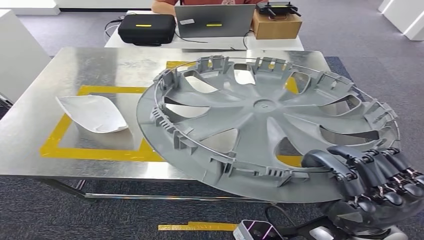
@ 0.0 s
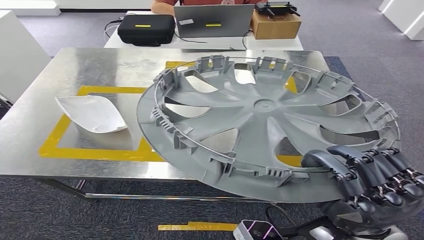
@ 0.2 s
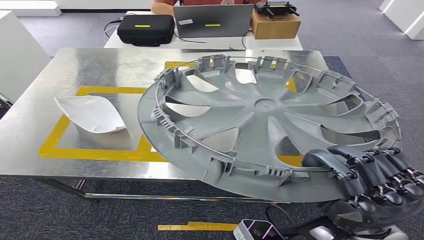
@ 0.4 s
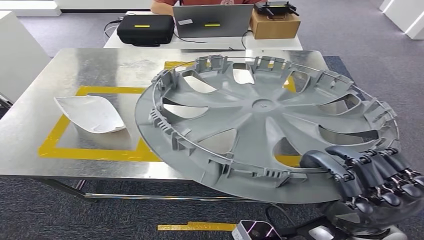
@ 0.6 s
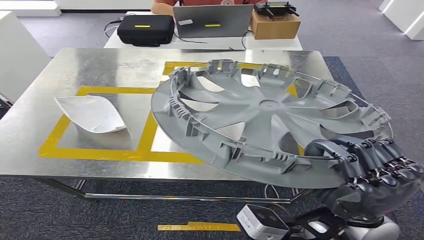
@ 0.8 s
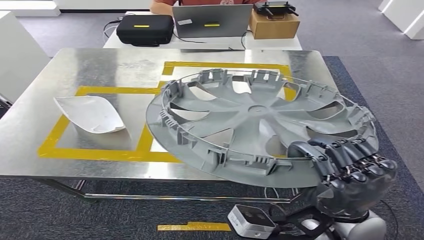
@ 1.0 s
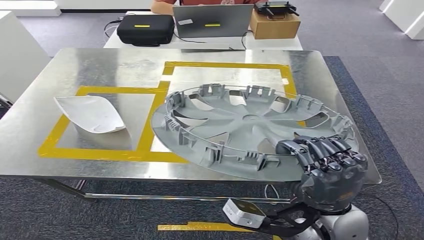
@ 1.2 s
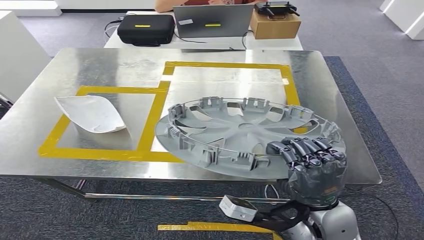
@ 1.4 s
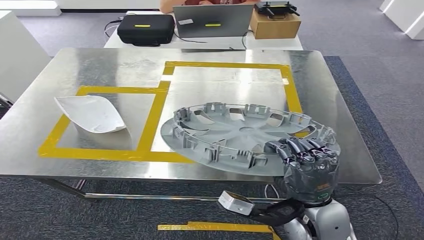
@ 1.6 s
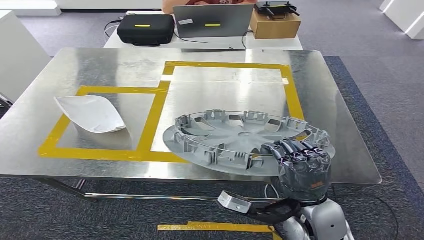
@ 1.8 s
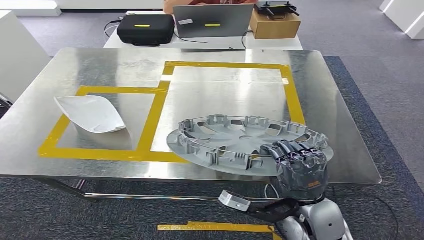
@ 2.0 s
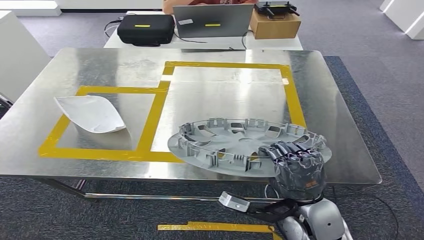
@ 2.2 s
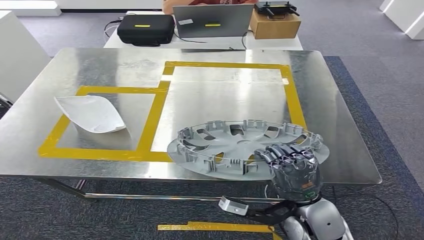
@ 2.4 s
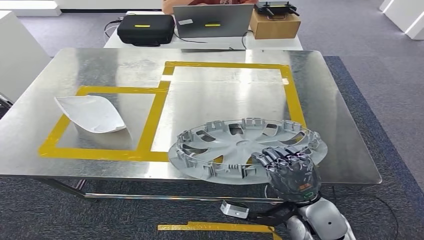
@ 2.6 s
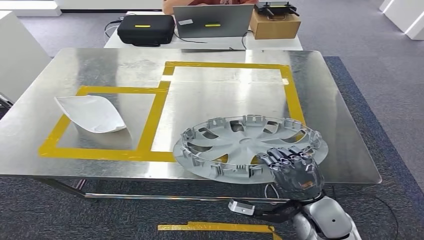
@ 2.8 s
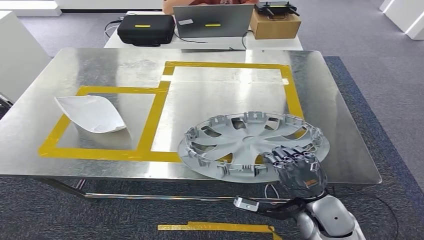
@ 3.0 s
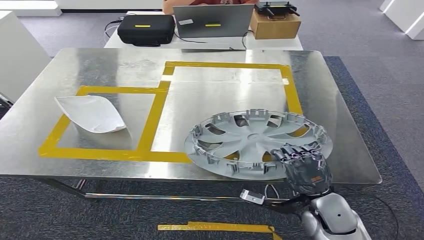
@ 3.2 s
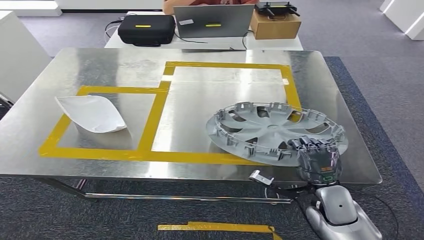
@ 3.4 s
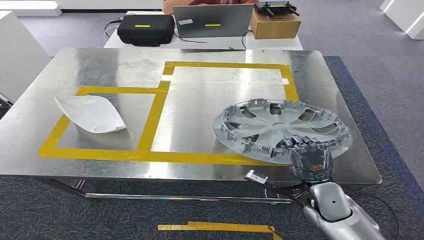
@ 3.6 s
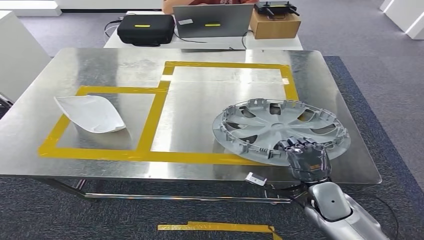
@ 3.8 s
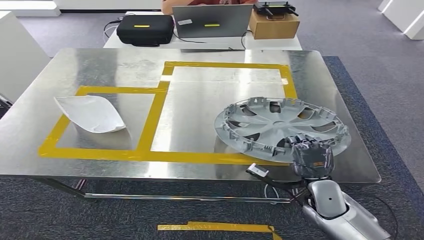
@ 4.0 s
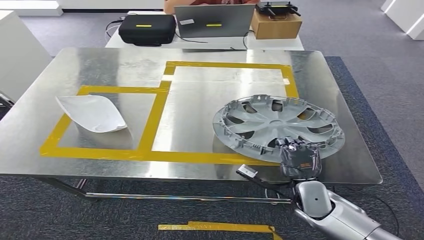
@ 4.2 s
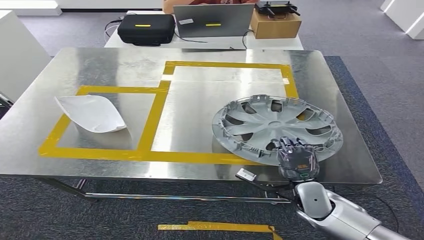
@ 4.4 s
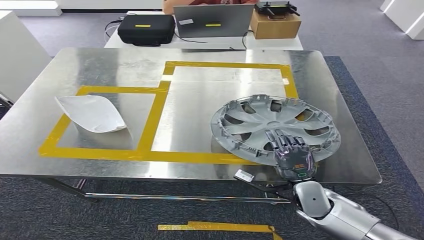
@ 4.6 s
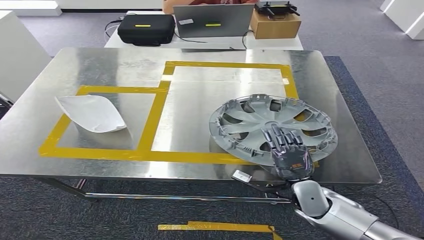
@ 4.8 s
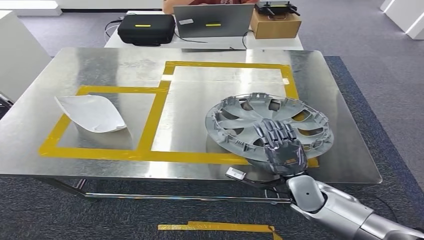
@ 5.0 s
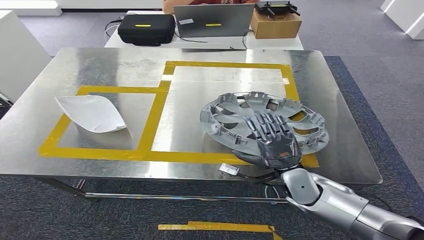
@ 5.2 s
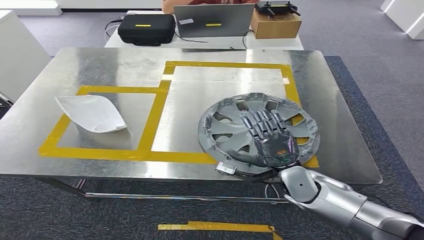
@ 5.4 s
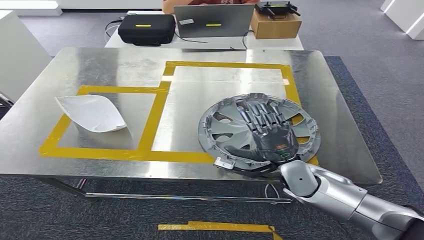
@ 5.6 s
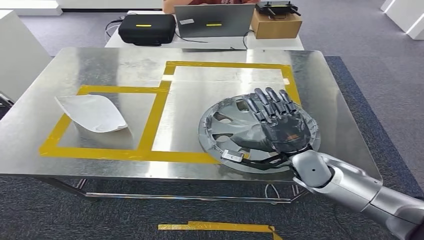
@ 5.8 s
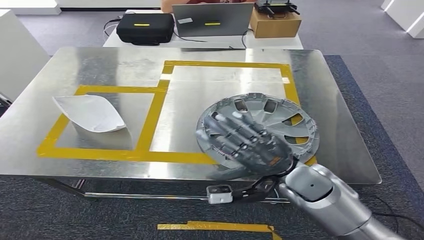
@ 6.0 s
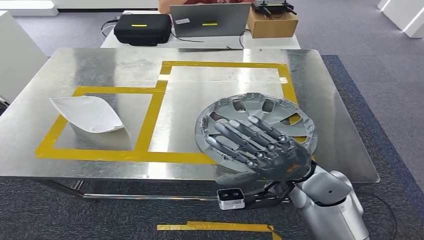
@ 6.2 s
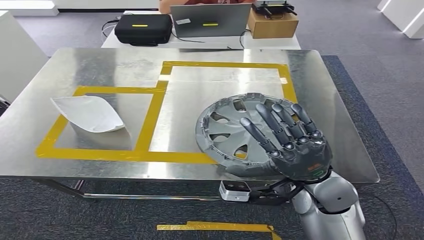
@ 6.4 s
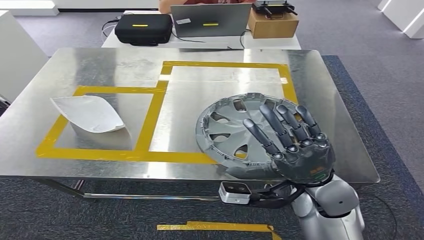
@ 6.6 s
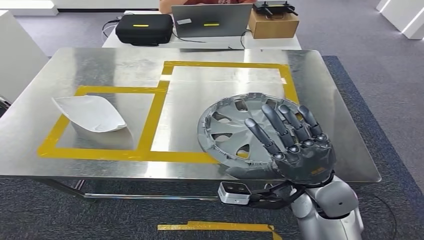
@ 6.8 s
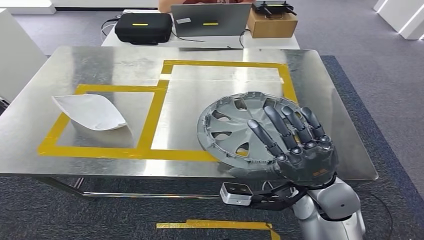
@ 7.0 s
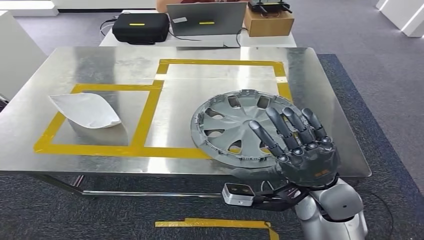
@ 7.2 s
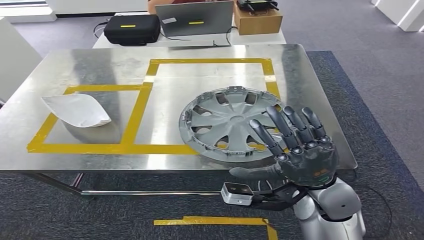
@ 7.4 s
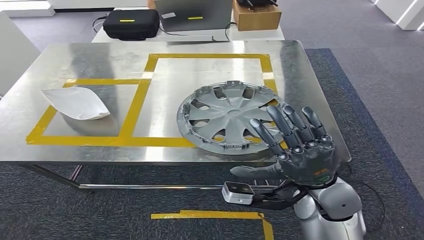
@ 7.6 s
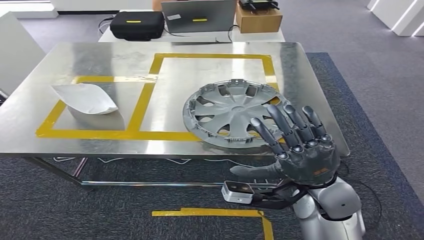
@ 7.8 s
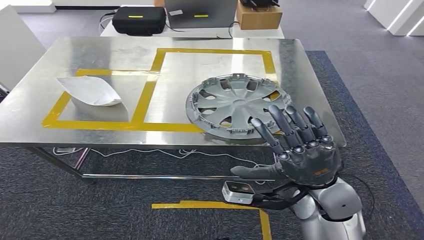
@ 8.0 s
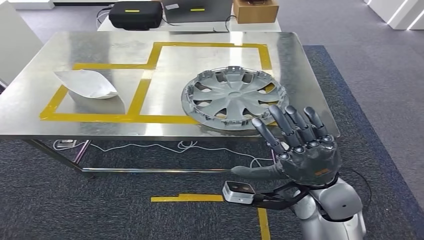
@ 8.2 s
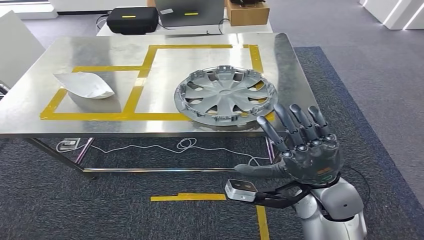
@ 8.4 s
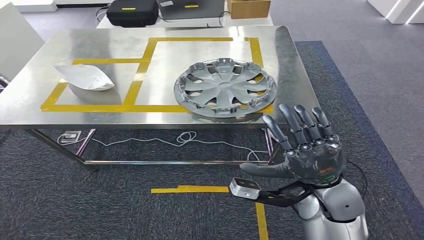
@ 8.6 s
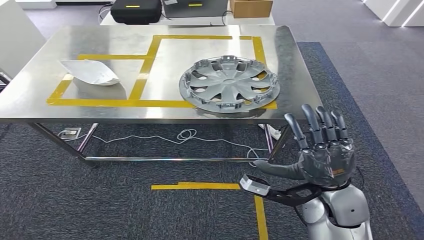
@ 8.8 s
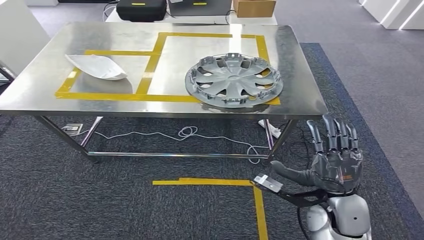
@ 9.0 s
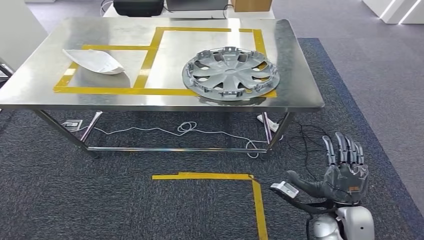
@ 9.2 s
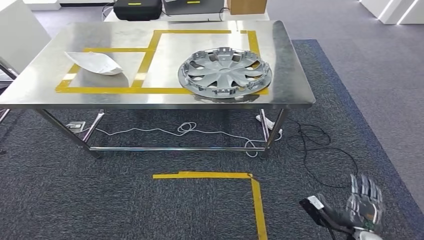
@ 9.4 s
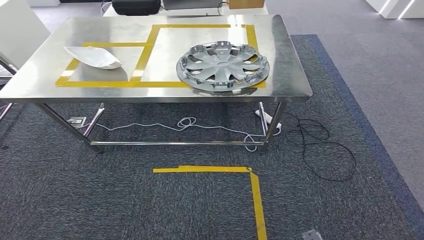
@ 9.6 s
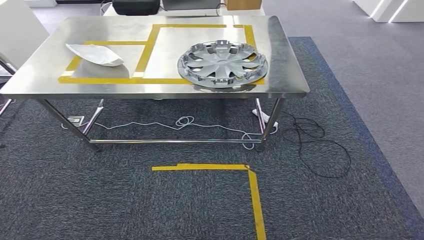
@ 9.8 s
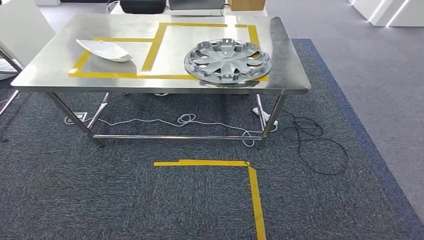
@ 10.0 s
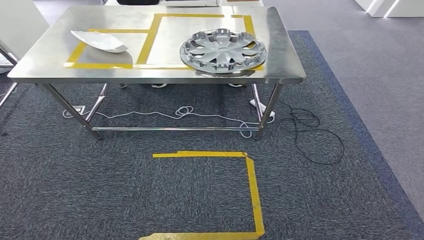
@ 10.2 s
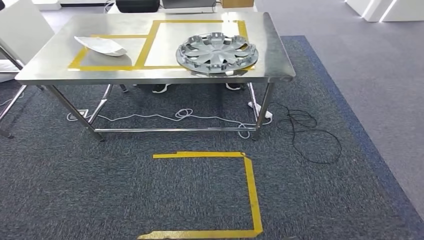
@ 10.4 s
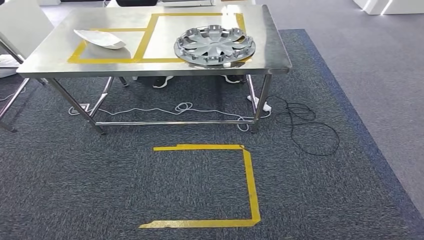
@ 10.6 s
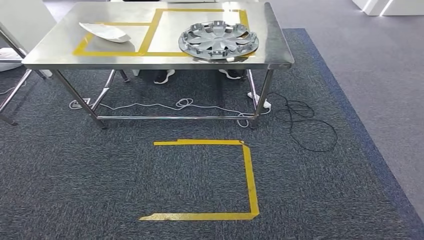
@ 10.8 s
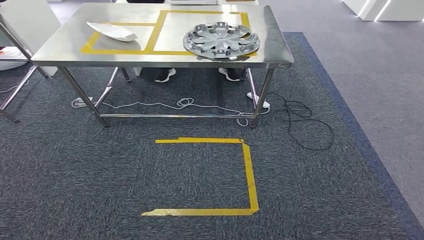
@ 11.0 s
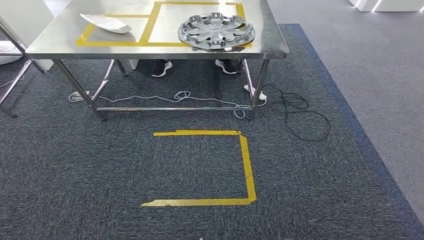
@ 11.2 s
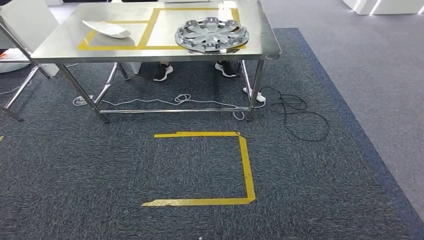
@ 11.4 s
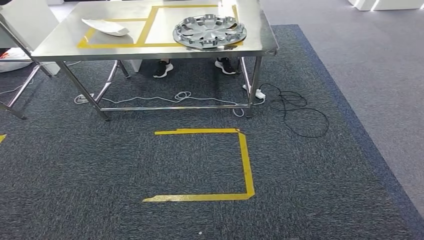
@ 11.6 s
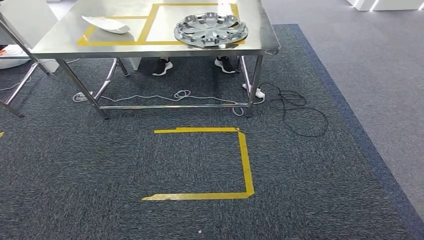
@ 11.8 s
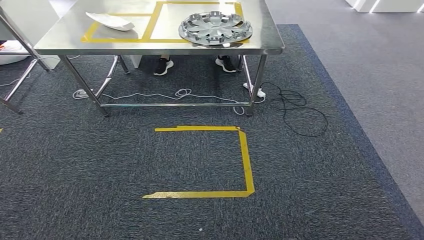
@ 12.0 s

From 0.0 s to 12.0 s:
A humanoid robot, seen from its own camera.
Step, from 0.0 s to 6.4 s: Insert the small component into the corresponding slot on the workbench.
From 1.6 s to 3.0 s: The right hand shifts approximately 5 cm downward.
From 3.0 s to 4.4 s: The right hand moves downward, about 5 cm.
From 4.4 s to 6.0 s: The right hand moves upward, about 10 cm.

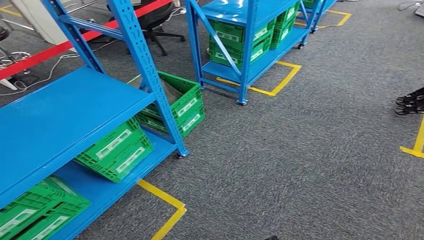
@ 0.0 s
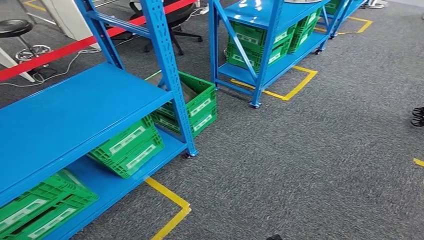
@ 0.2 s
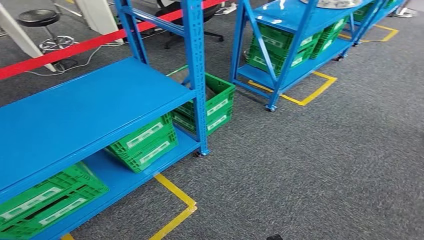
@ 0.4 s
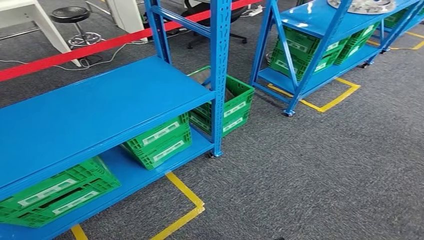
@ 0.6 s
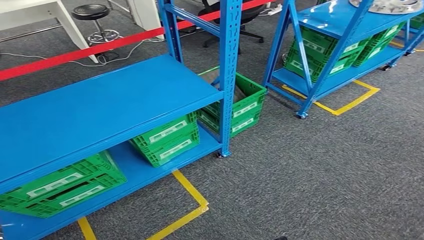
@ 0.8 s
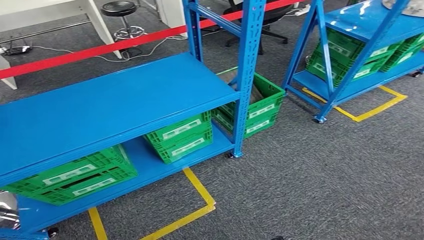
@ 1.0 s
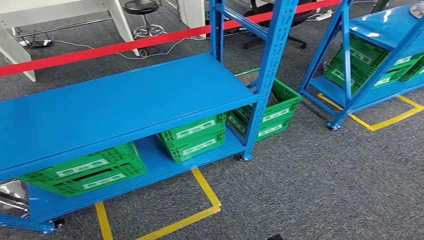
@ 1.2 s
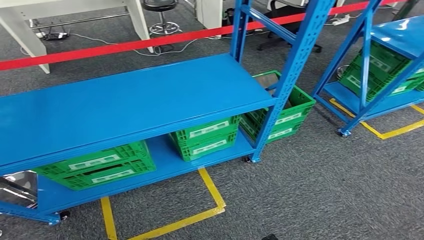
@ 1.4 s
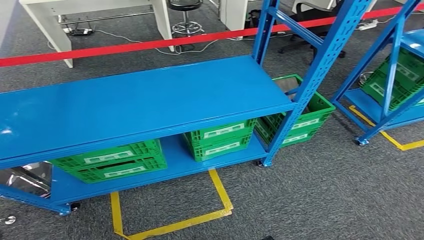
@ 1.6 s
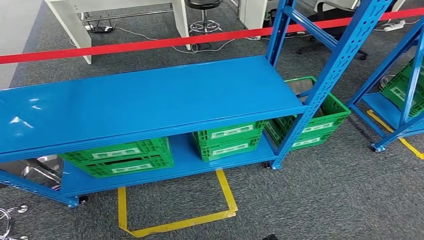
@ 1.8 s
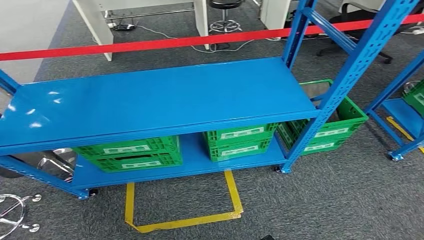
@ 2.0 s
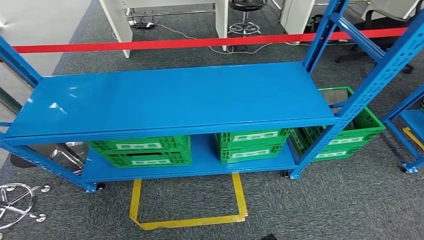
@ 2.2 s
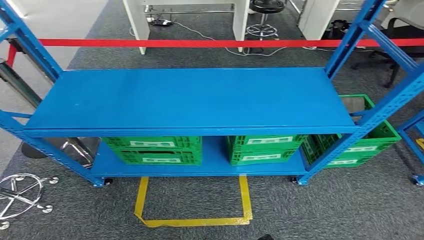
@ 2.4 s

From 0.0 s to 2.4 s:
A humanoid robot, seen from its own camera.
Step, from 0.0 s to 2.2 s: Return to the initial position at the workbench.
